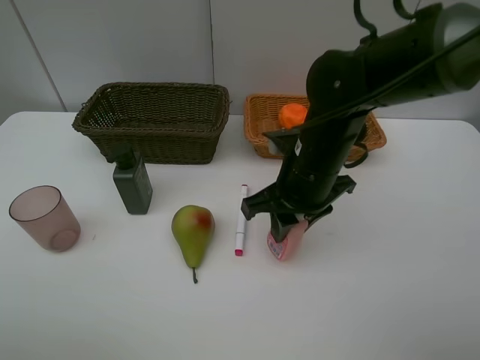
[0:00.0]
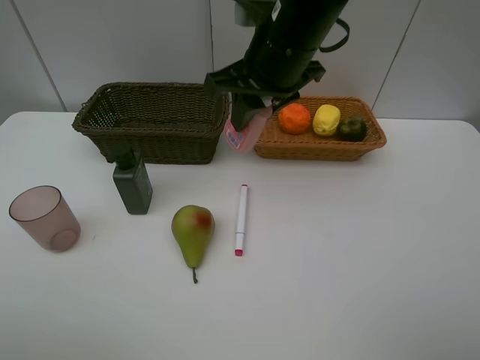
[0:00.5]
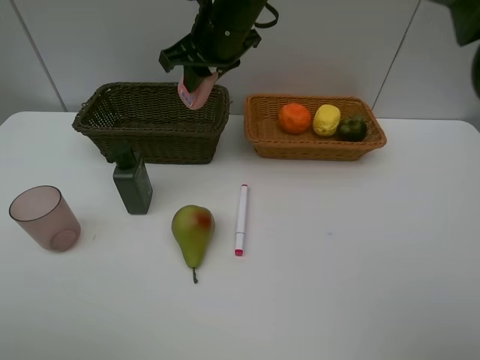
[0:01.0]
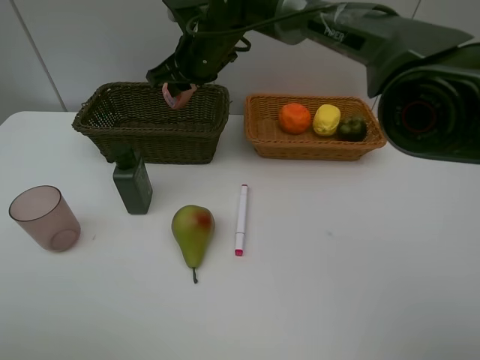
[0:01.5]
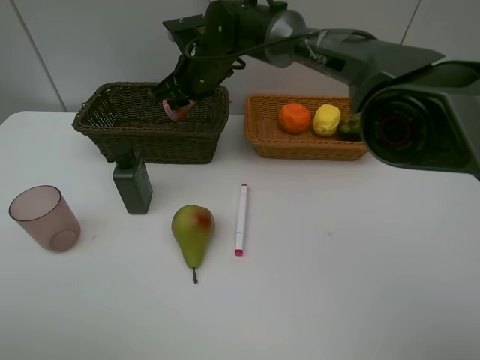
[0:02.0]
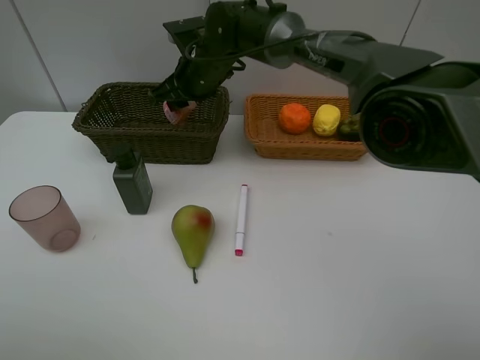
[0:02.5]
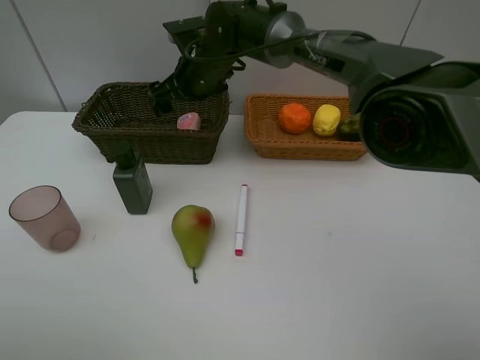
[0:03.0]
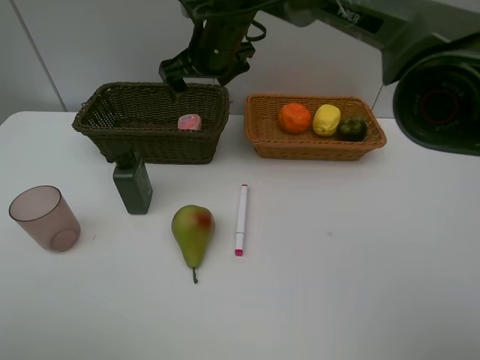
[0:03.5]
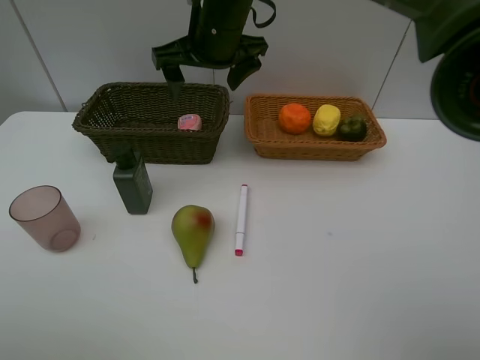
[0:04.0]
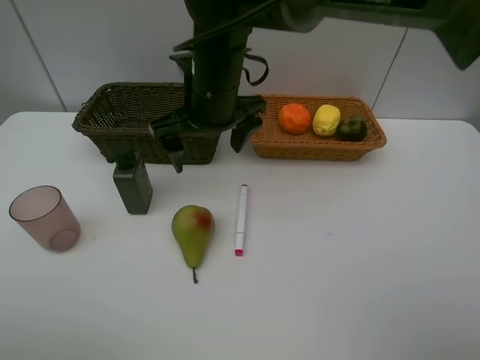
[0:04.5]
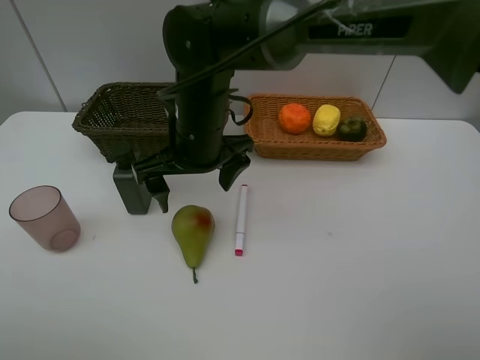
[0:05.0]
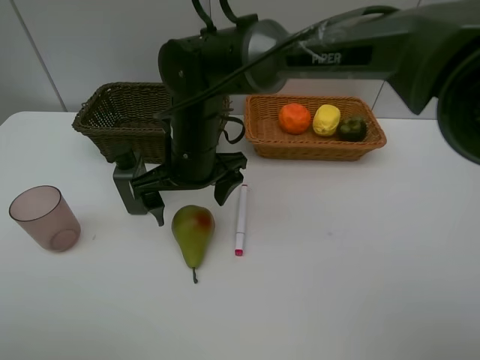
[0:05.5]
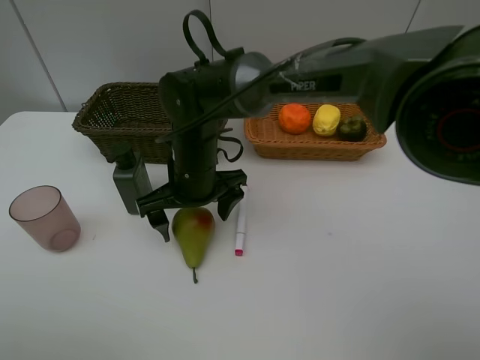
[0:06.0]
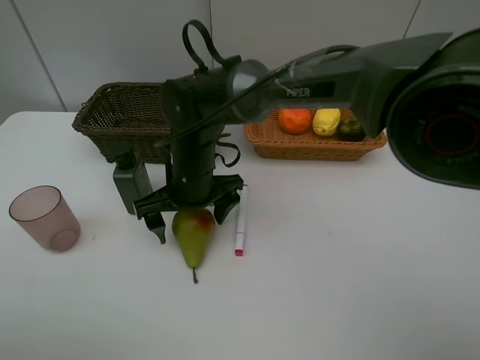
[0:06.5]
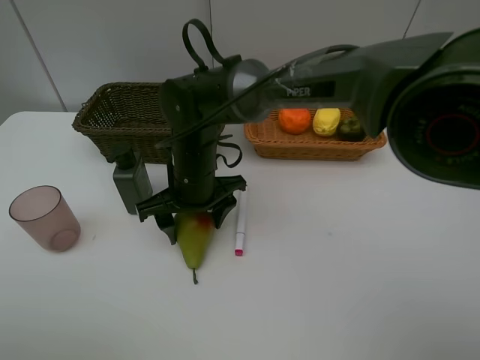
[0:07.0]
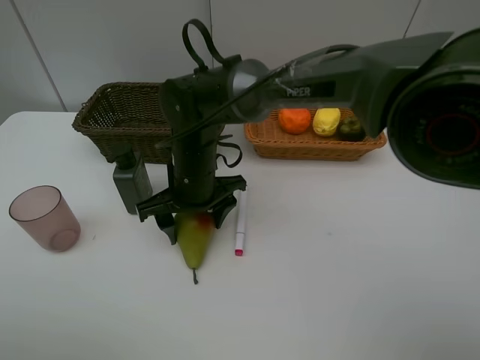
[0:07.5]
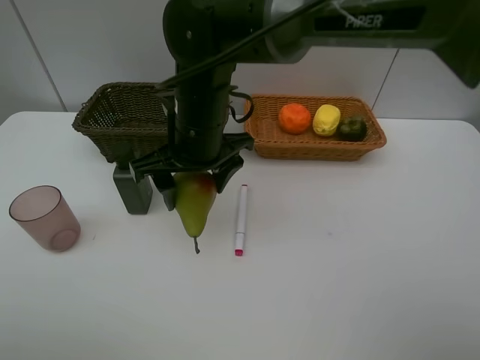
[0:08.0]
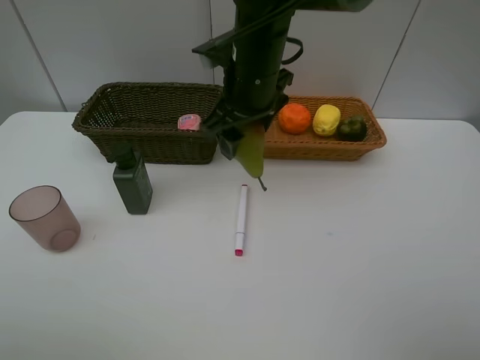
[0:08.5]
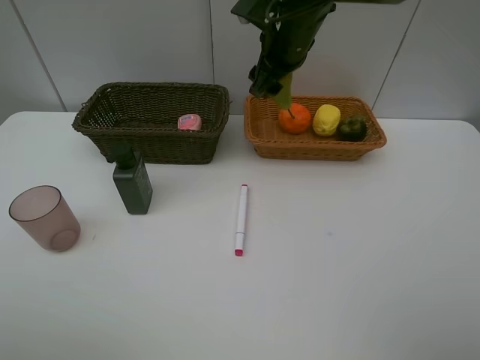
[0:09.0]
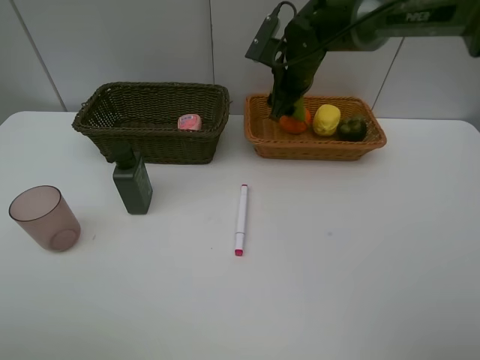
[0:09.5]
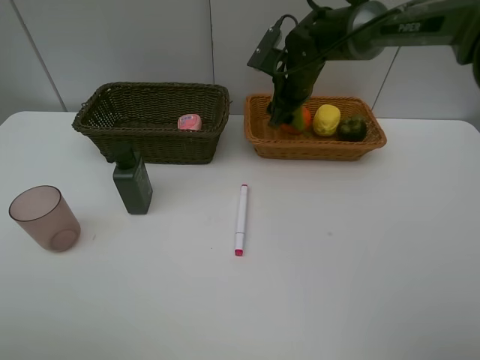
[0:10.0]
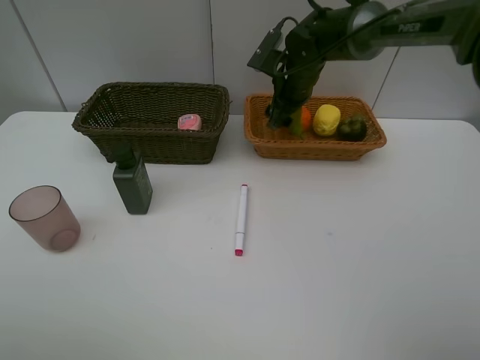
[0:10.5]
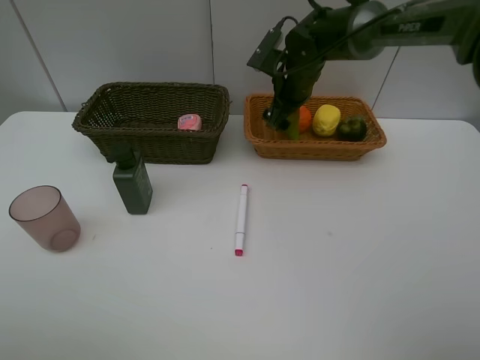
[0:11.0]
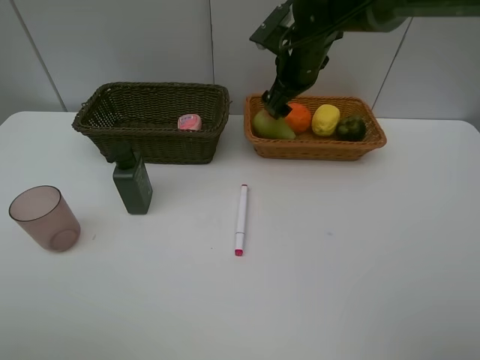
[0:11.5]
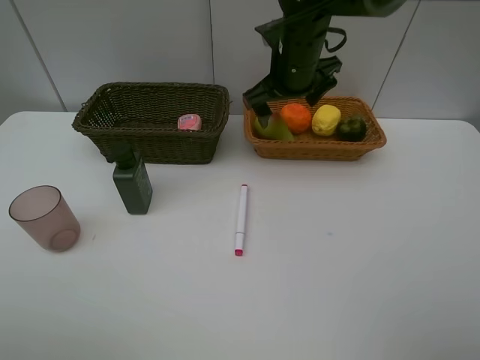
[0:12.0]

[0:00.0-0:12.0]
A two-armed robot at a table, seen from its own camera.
Task of the whole recording: Place multiple objects separately in different baskets.
Step, 0:00.5 to 0:02.5: Place the laundry detergent in the dark basket with right gripper.
Step, 0:03.0 to 0:07.5: Pick up the pear with right gripper.
Step, 0:08.0 to 0:11.5: Place the pear in the light basket with right gripper.
0:00.0 to 0:02.0: The right gripper shifts about 25 cm forward and to the left.
0:02.0 to 0:04.0: The right gripper shifts some 10 cm upward and backward, and opens.
0:04.0 to 0:06.0: The right gripper moves downward and backward, about 15 cm.
0:06.0 to 0:08.0: The right gripper shifts about 10 cm upward.
0:08.0 to 0:10.0: The right gripper is displaced forward and to the right by some 20 cm.
0:10.0 to 0:12.0: The right gripper goes some 10 cm backward and upward.

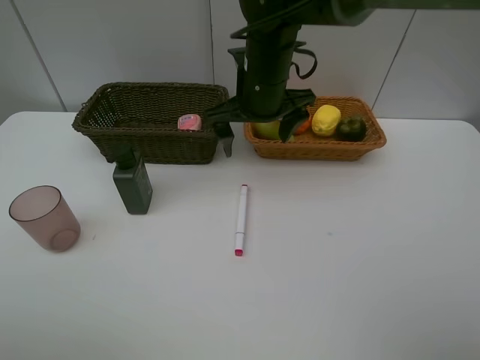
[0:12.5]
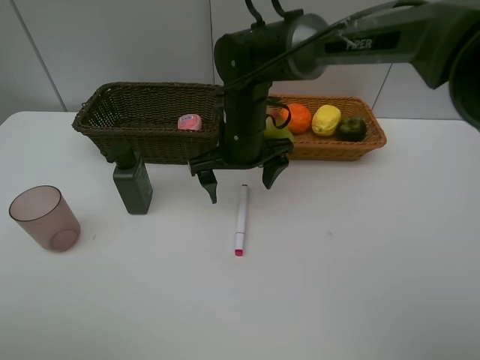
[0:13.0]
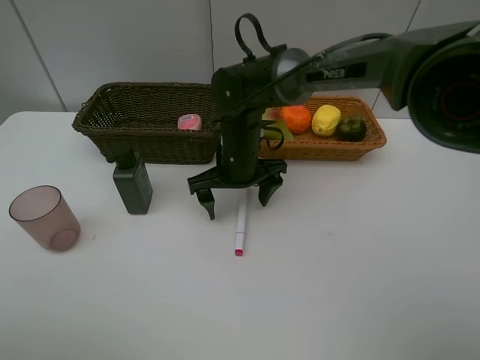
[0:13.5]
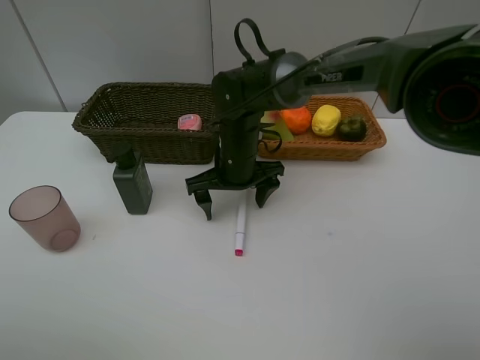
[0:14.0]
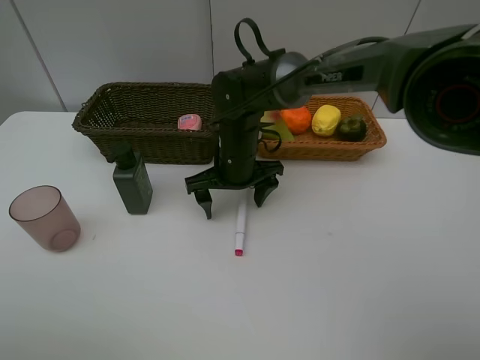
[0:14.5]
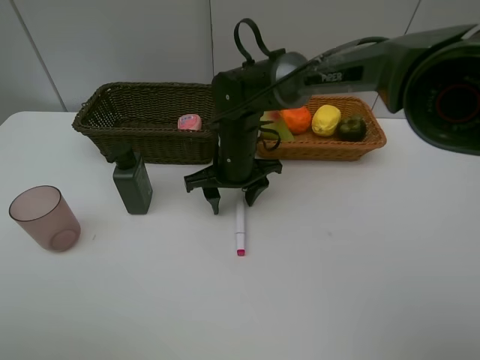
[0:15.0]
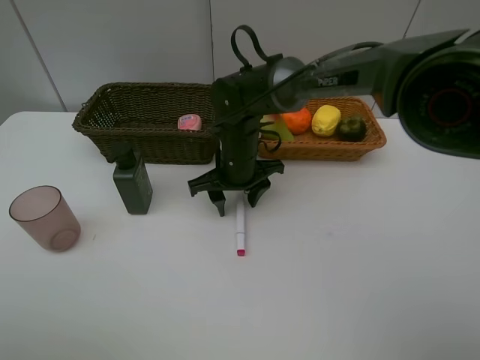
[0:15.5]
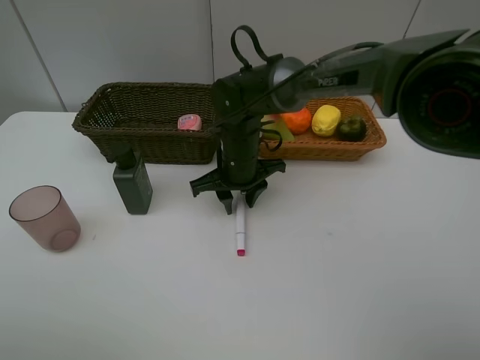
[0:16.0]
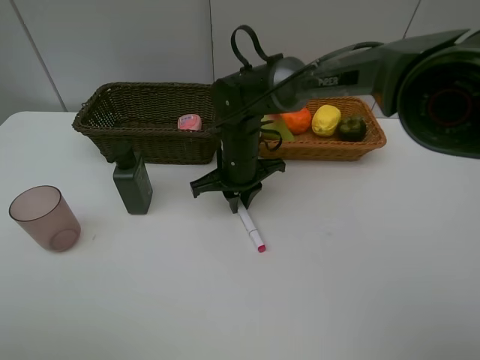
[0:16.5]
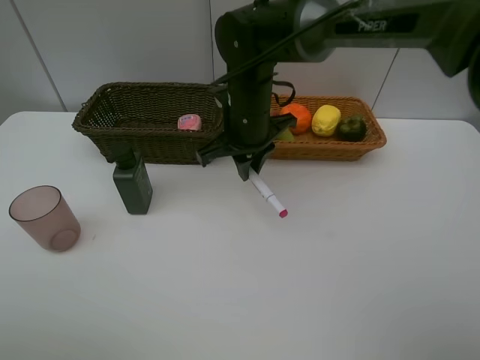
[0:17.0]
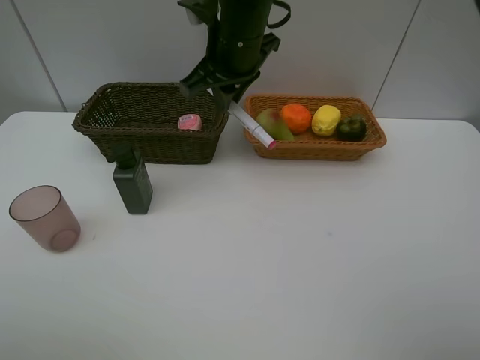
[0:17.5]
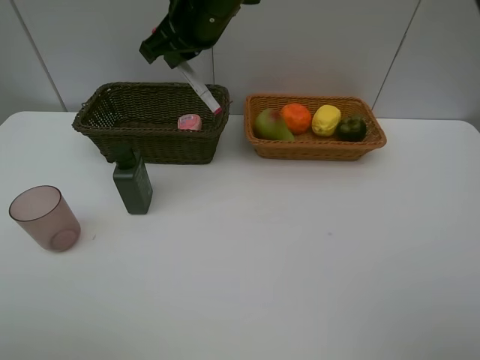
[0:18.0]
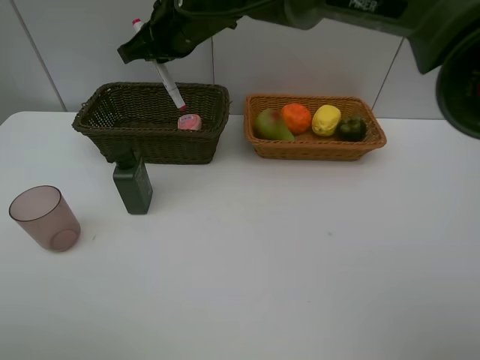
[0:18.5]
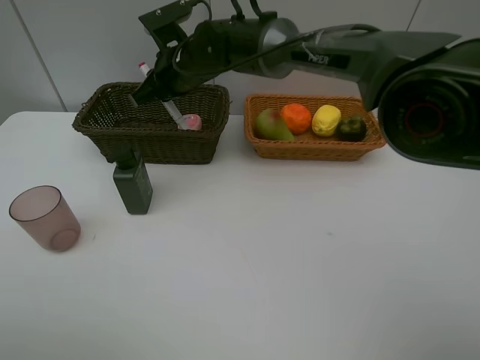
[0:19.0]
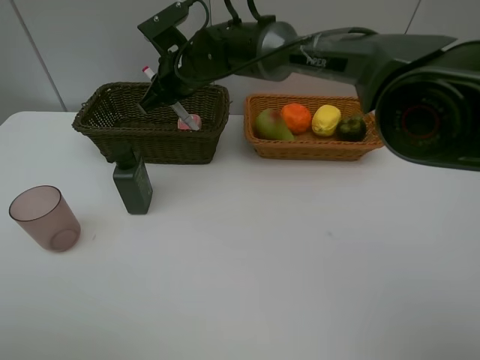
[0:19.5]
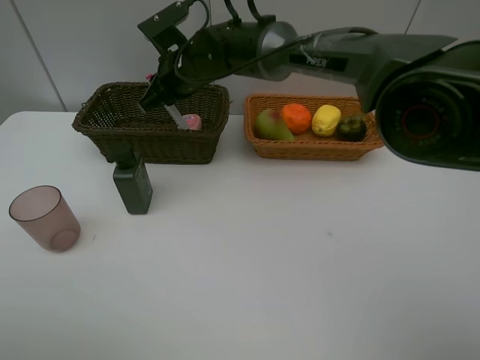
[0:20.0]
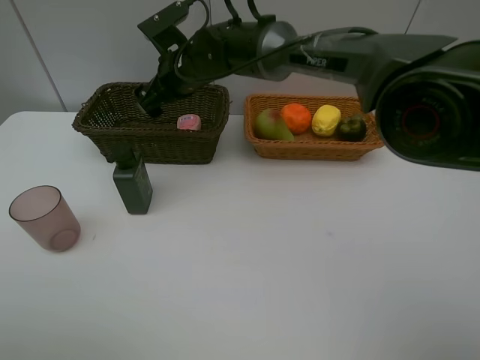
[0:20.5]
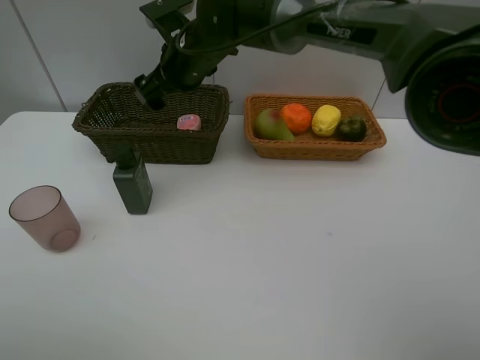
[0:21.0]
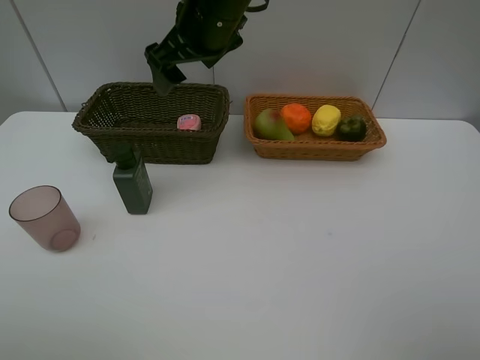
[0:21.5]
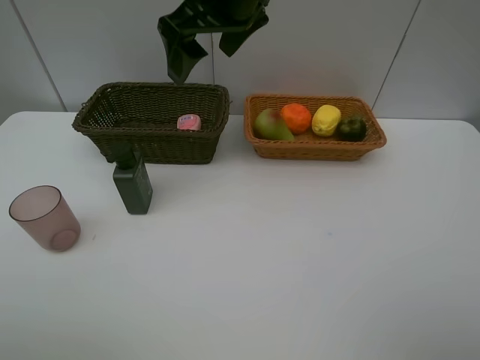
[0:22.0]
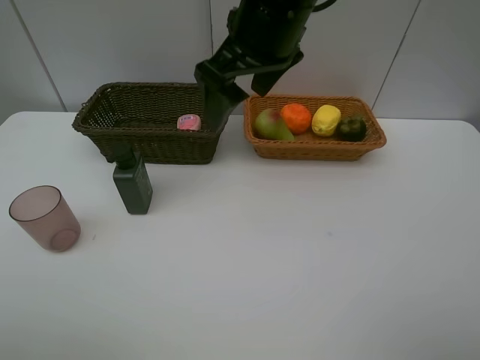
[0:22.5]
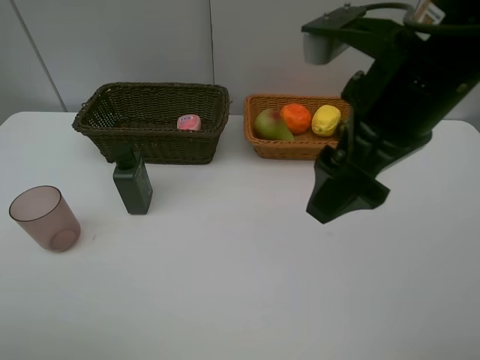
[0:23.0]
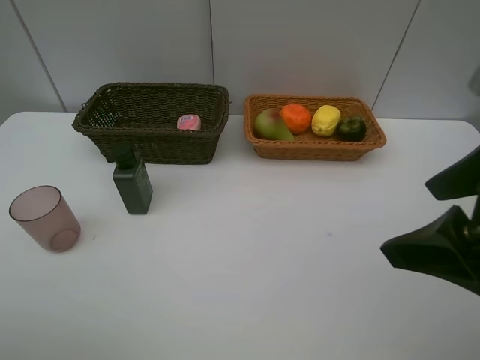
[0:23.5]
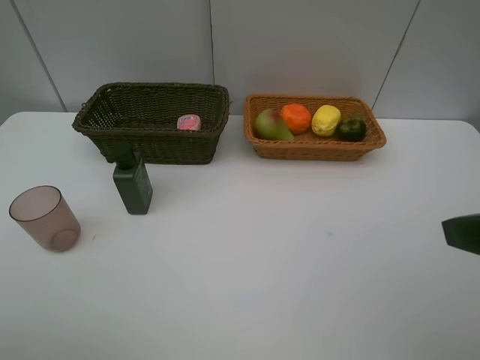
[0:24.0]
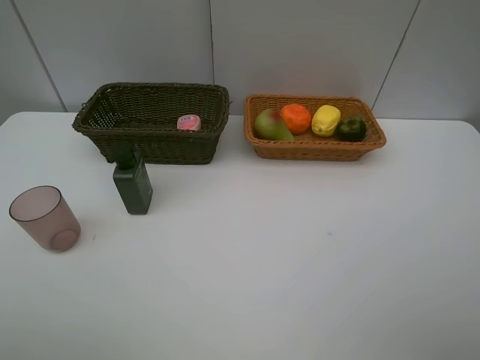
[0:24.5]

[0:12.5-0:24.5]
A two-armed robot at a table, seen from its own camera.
Task of the whole recording: Place multiple objects separately in different baskets.
Step, 0:12.5 to 0:16.5: Pick up the red marker with right gripper.
Step, 0:17.0 to 0:20.5: Place the red marker in the dark basket with right gripper.
0:12.5 to 0:14.5: The right gripper travels downward by roughly 10 cm.
0:14.5 to 0:16.5: The right gripper closes.
0:16.5 to 0:18.5: The right gripper is displaced upward and to the left by roughly 15 cm.
0:18.5 to 0:20.5: The right gripper travels downward by some 5 cm, and opens up.
0:20.5 to 0:22.5: The right gripper travels backward, upward and to the right by roughly 20 cm.
0:22.5 to 0:24.5: The right gripper is displaced backward and to the right by roughly 35 cm.

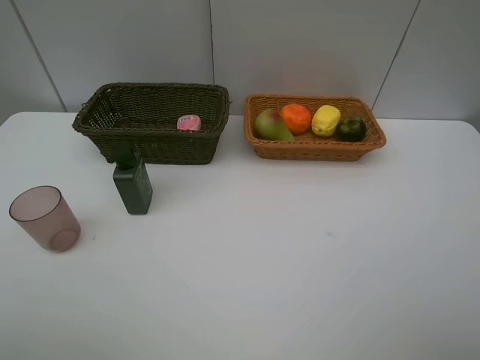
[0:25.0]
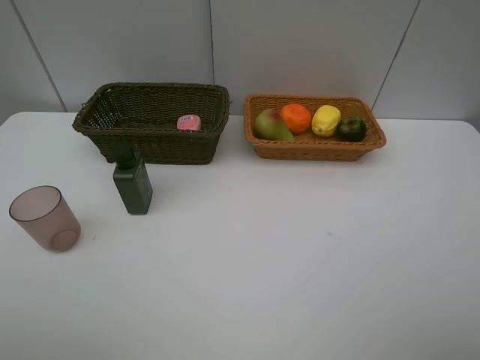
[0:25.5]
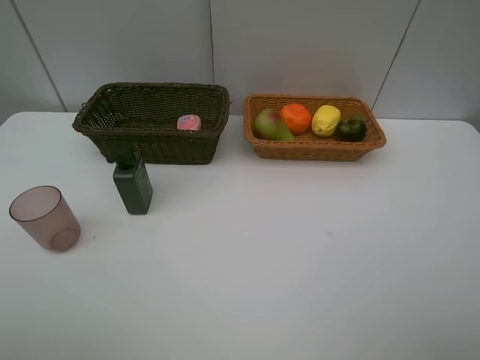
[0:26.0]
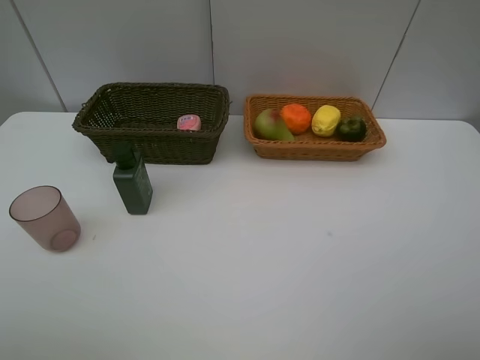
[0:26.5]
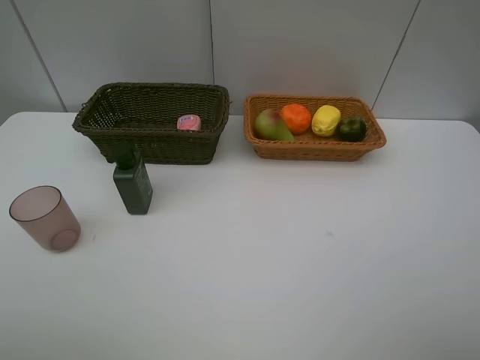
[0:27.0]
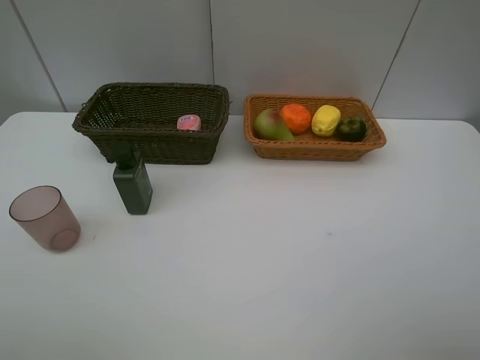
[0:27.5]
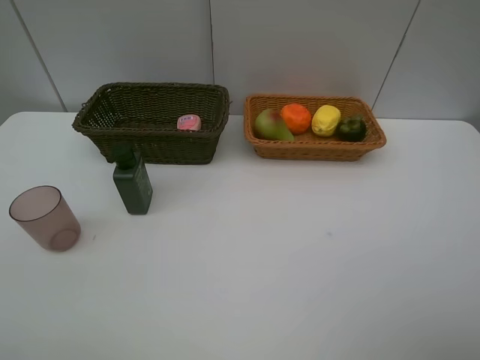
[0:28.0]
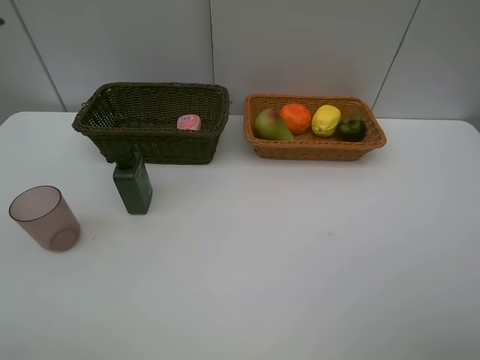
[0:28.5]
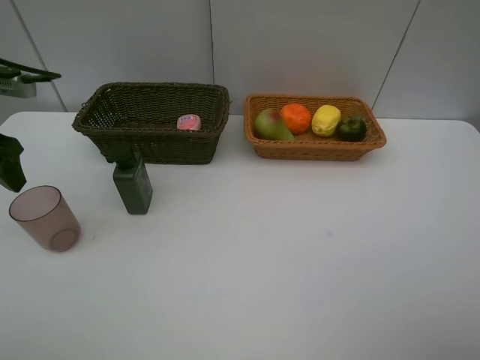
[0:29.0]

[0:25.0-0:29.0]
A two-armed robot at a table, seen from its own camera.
Task of the whole recording: Place multiple objects separately in different baskets.
0:25.0 to 0:27.0: The two grippers keep their place.
0:27.0 to 0:29.0: The left gripper moves forward, some 25 cm.
